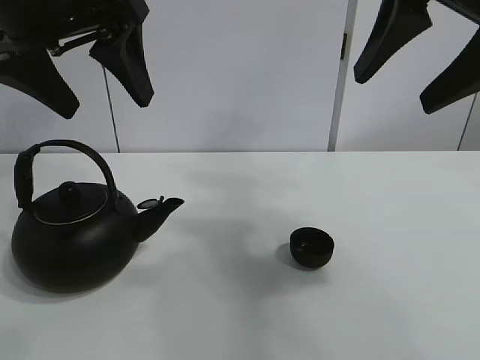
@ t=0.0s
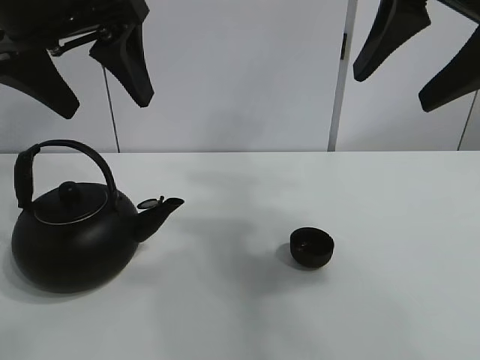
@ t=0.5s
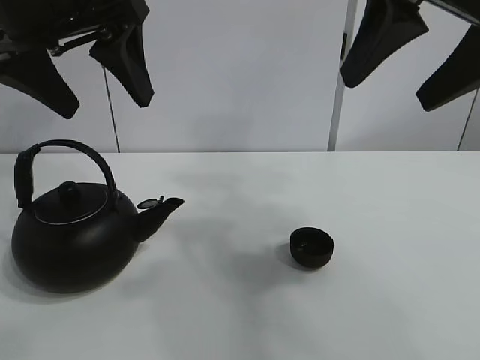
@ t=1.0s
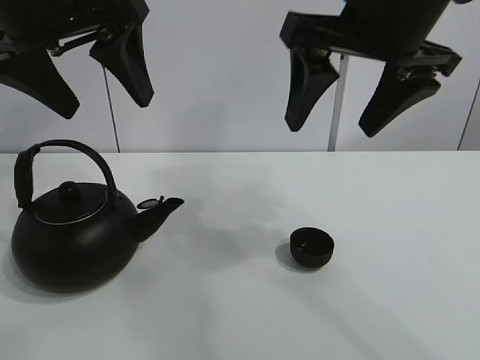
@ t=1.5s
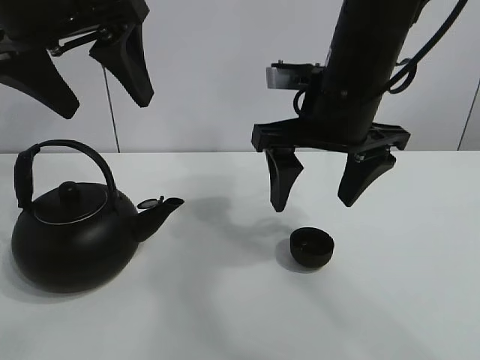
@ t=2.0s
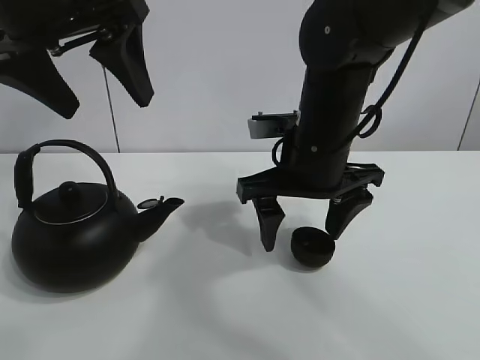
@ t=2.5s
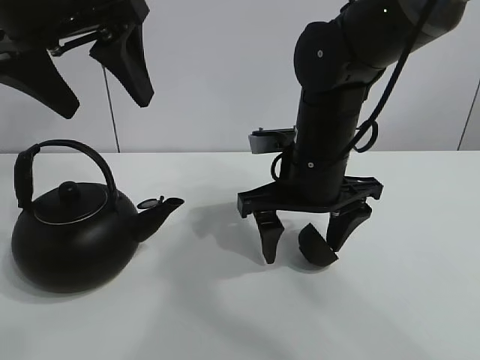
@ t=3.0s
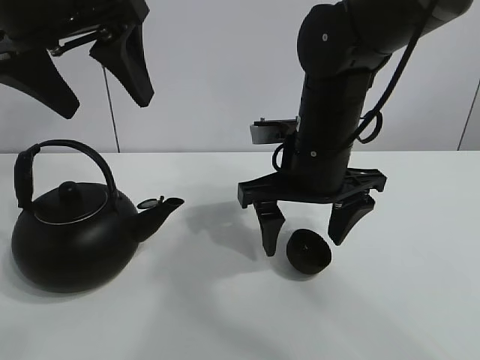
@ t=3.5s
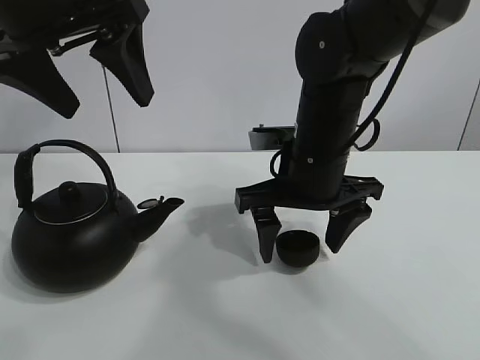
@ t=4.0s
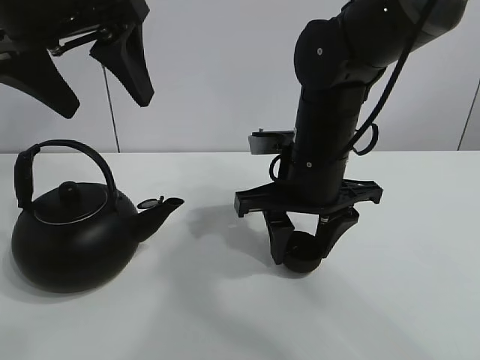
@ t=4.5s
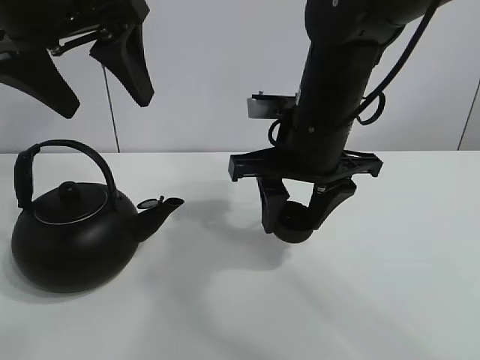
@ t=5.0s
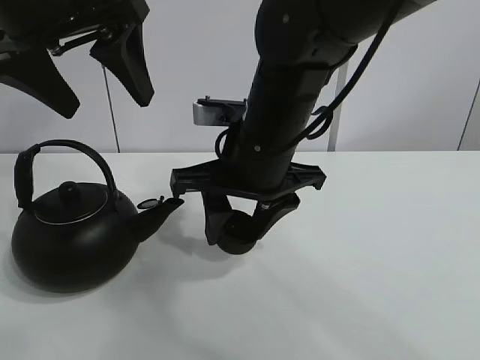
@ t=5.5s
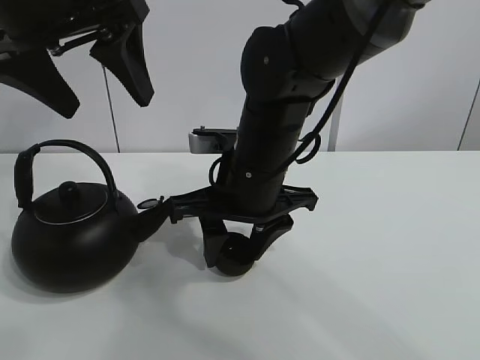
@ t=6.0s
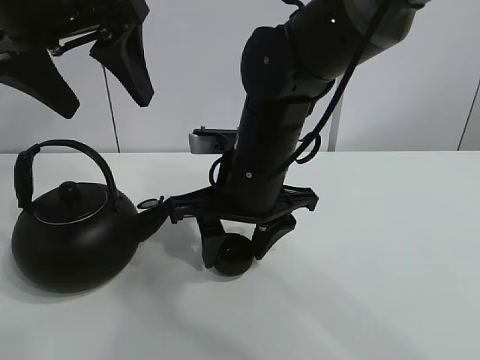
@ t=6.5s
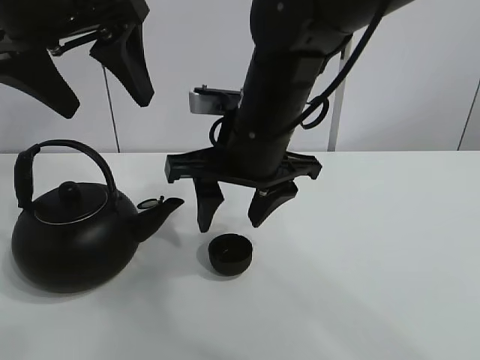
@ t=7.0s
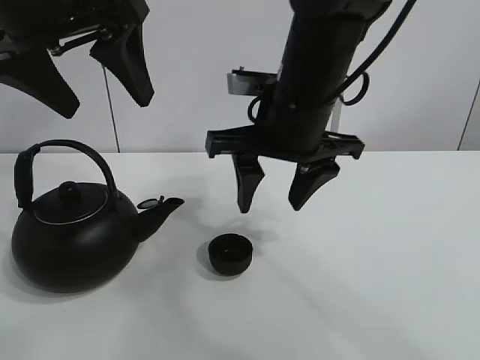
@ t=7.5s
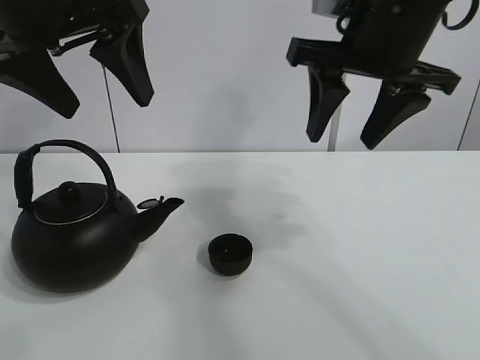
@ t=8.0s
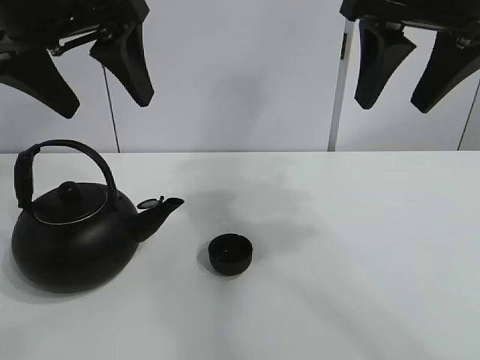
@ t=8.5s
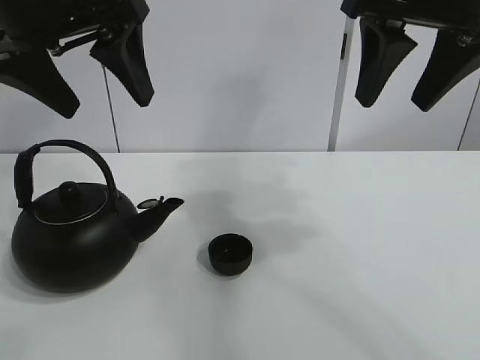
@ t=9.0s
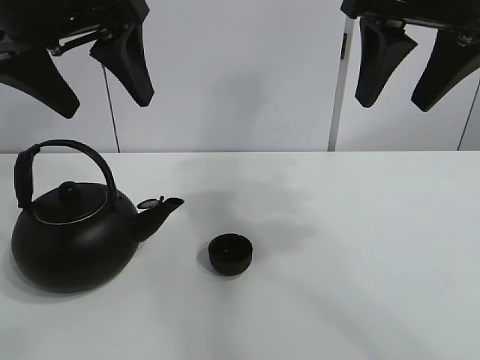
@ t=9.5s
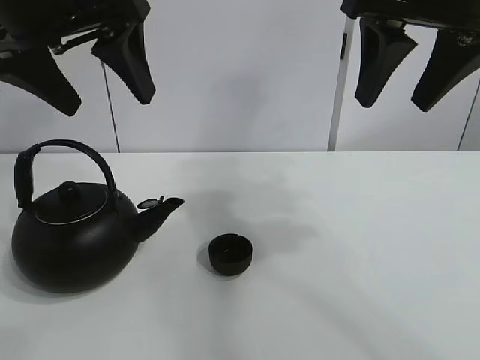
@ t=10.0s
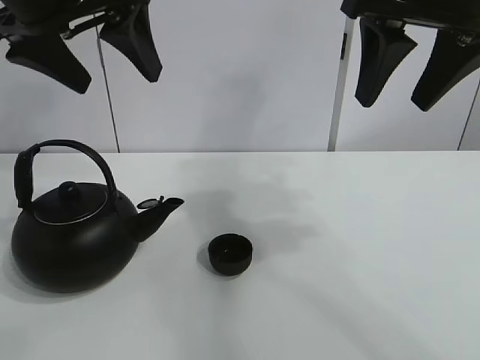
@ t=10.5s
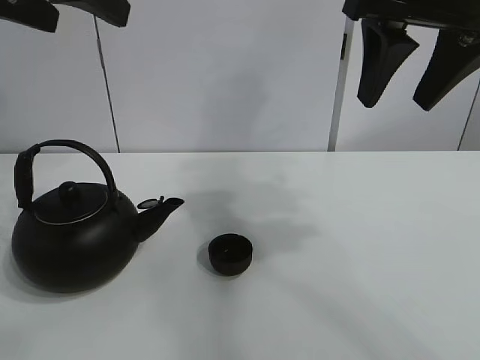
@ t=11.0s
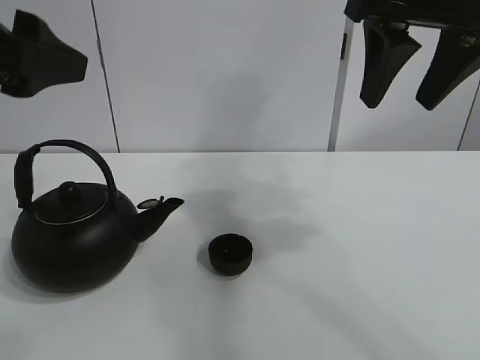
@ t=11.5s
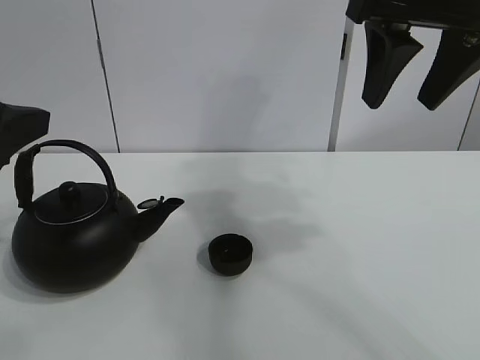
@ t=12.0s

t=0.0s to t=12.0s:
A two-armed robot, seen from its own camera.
Task of the whole recording: pour tea into the teacup.
Step, t=0.0s to t=4.5s: Pick up the teacup with the right gripper.
Step, t=5.0s to t=6.5s: Place the teacup in the center of view with the right gripper.
t=2.0s to t=4.0s: The right gripper travels downward by roughly 5 cm.
t=4.0s to t=6.0s: The right gripper moves to the left, about 5 cm, and closes its fingers.
t=6.0s to t=8.0s: The right gripper is displaced upward and to the right by roughly 20 cm.
t=8.0s to t=10.0s: The right gripper moves about 5 cm.
t=10.0s to t=12.0s: The left gripper heads backward, downward and to the left, covering roughly 15 cm.

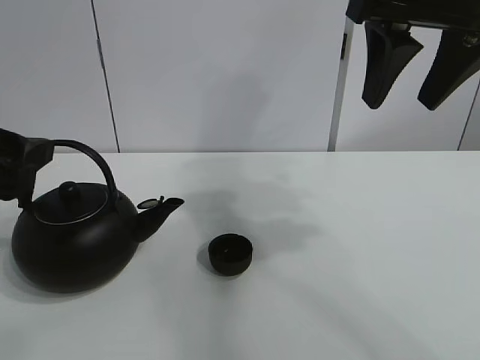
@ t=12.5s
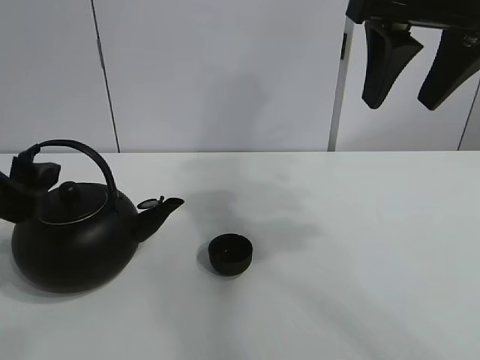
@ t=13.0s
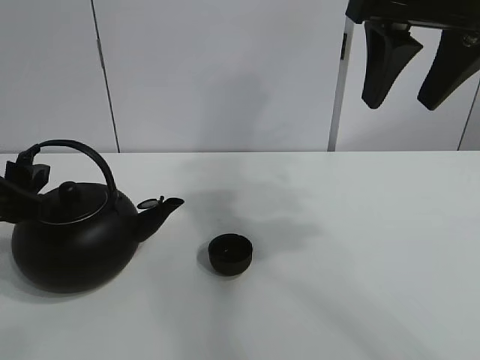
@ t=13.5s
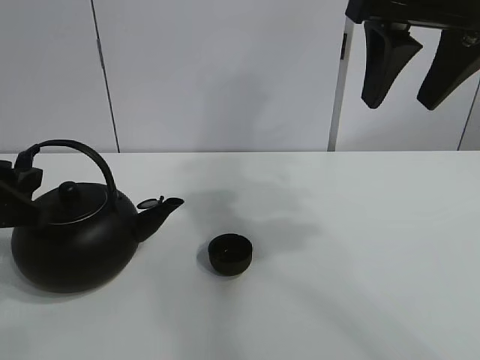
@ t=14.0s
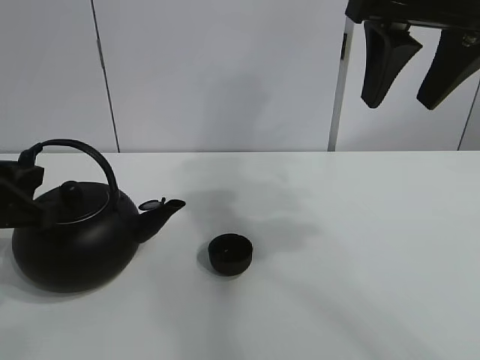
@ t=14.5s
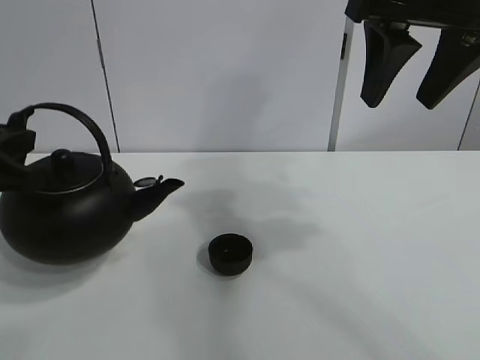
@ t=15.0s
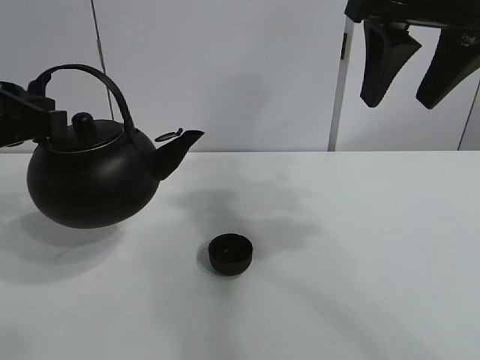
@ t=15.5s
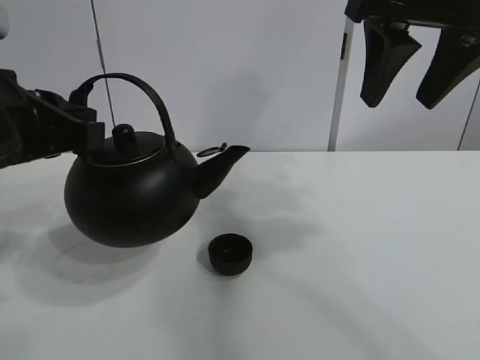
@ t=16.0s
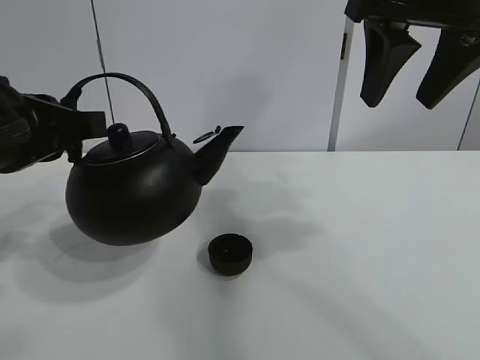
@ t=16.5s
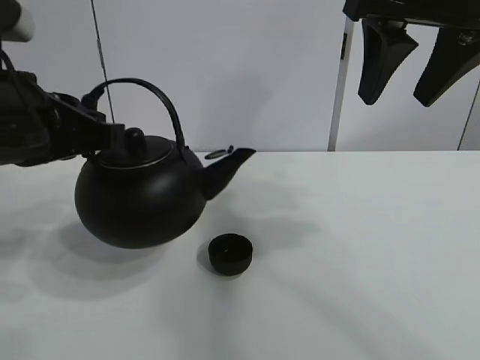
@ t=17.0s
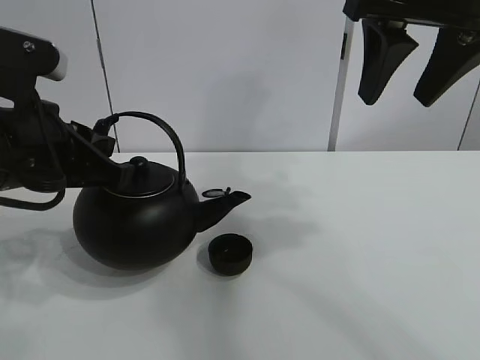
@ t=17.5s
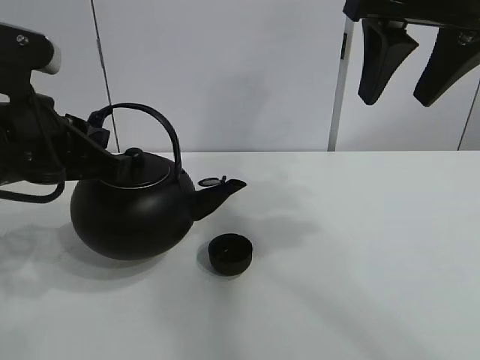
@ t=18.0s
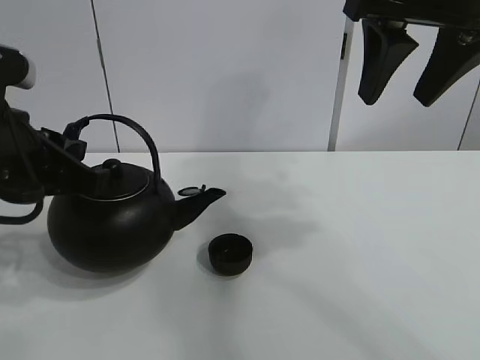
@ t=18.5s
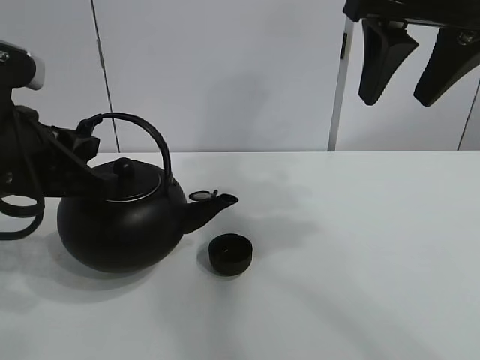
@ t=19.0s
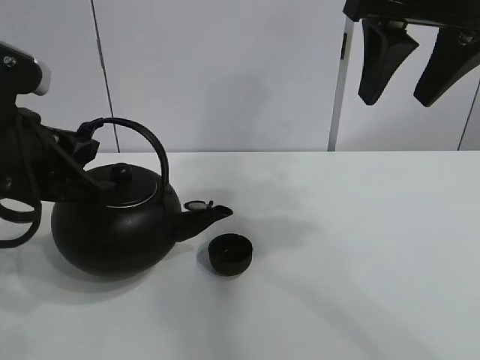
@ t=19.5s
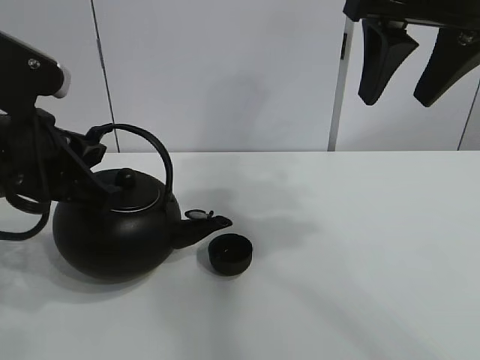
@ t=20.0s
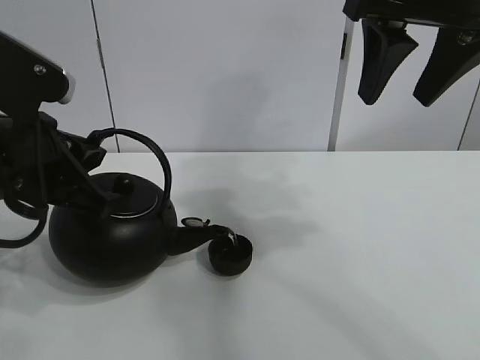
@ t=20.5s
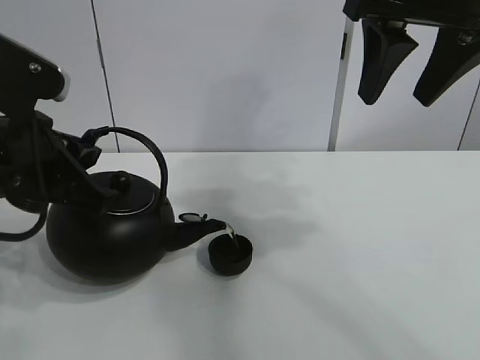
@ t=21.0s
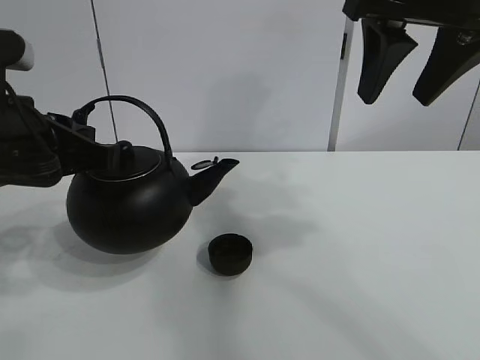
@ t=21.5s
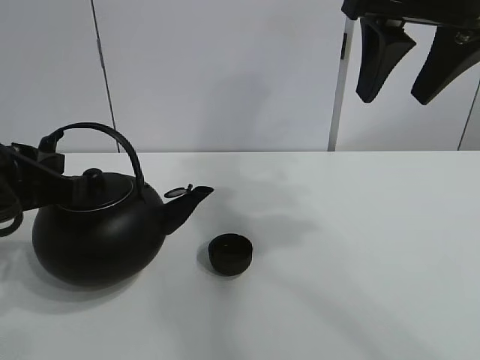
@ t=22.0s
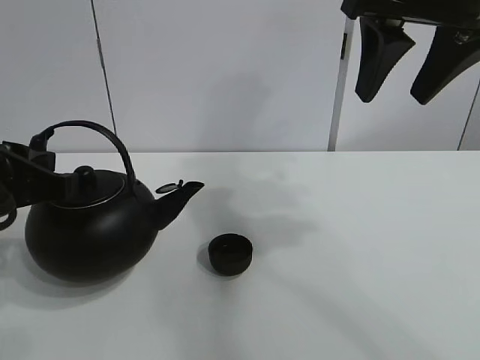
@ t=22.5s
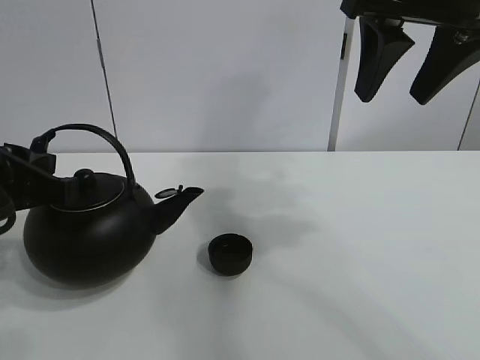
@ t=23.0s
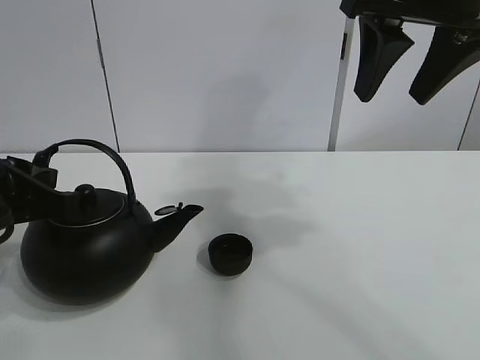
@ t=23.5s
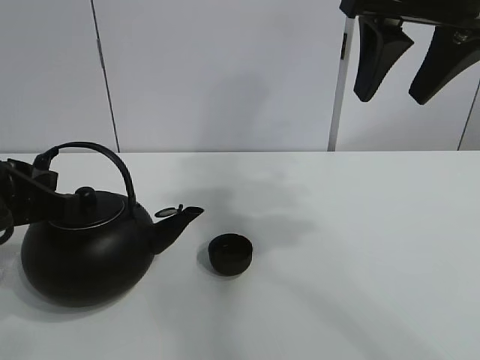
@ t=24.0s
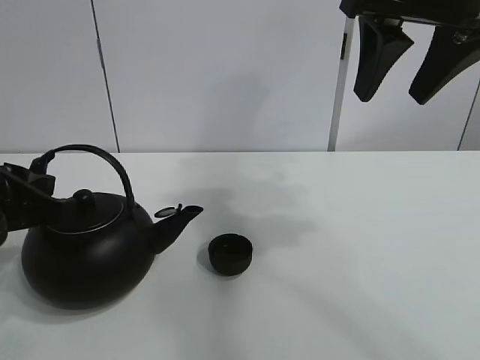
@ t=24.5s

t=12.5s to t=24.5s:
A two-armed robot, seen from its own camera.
Task of the whole recording: pour tea into the teacup.
Step, t=15.0s to t=21.0s: Pour tea into the teacup with the left gripper.
t=12.5s to t=14.5s: The left gripper goes roughly 5 cm downward, and closes its fingers.
t=14.5s to t=16.5s: The left gripper travels upward and to the right by about 10 cm.
t=18.5s to t=20.5s: The grippers make only small movements.
t=22.5s to t=24.5s: There are only small adjustments of the grippers.

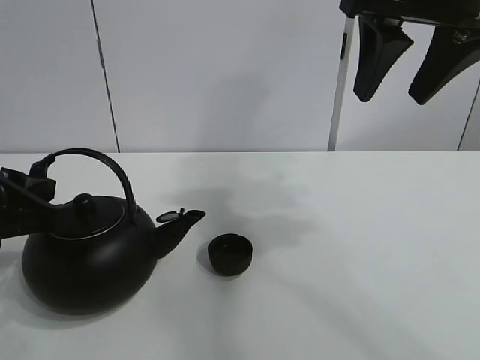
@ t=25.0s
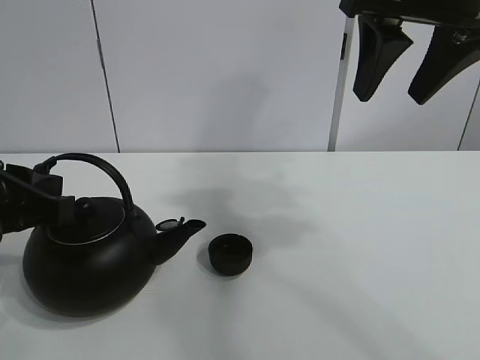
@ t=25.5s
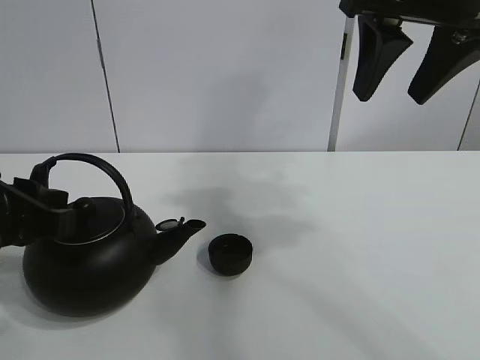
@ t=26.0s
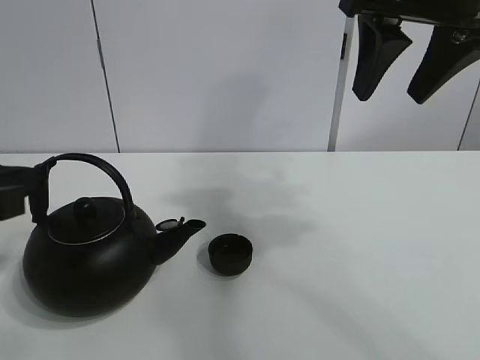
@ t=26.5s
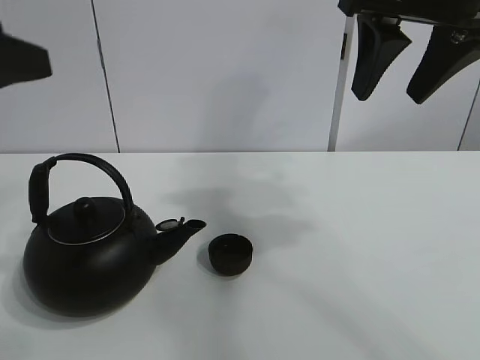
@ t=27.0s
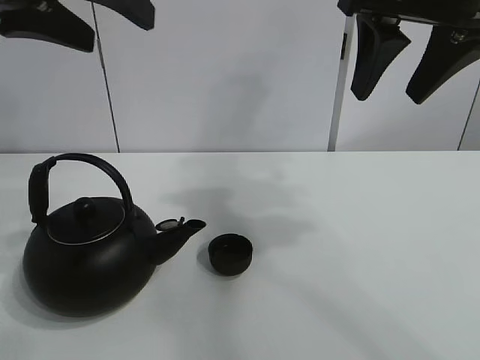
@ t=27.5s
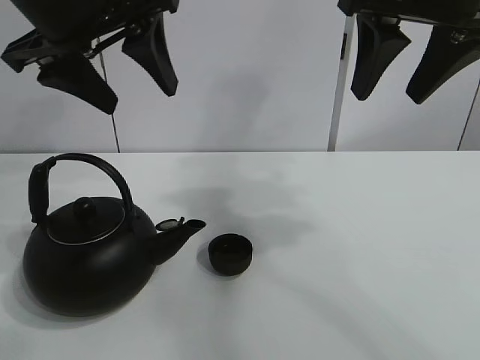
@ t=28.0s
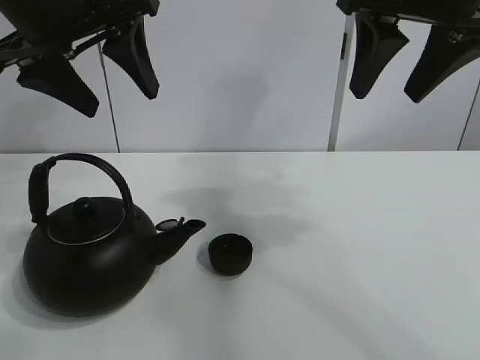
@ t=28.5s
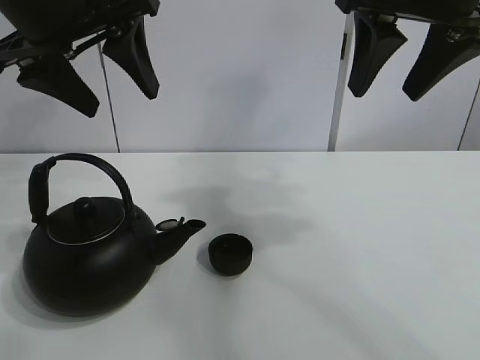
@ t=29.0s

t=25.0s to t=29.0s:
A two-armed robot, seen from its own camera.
Task of the whole recording: pour tea into the teacup.
t=25.0s to t=27.0s: The left gripper shifts about 10 cm upward, and opens its fingers.
t=27.0s to t=29.0s: The left gripper travels forward and to the right by about 15 cm.
